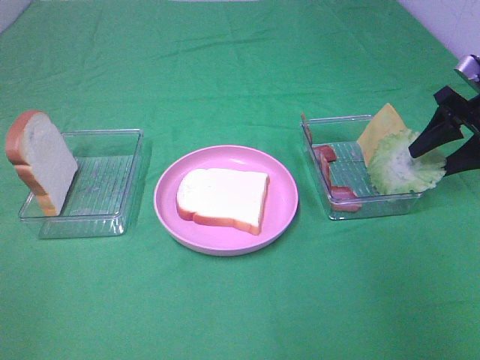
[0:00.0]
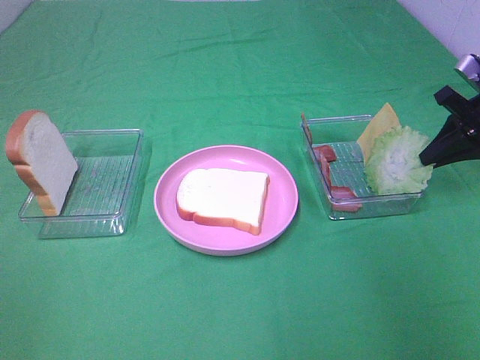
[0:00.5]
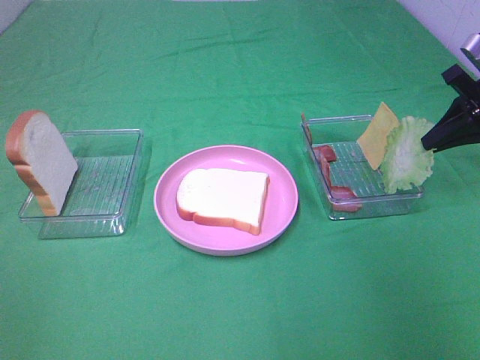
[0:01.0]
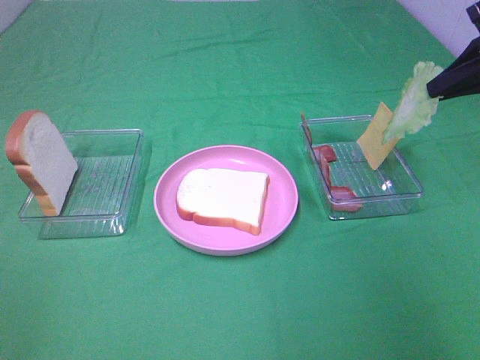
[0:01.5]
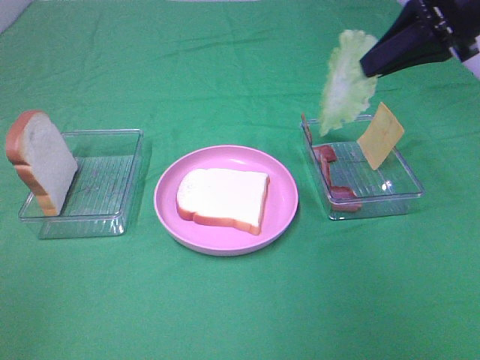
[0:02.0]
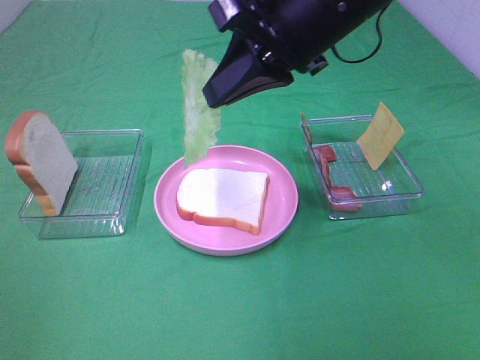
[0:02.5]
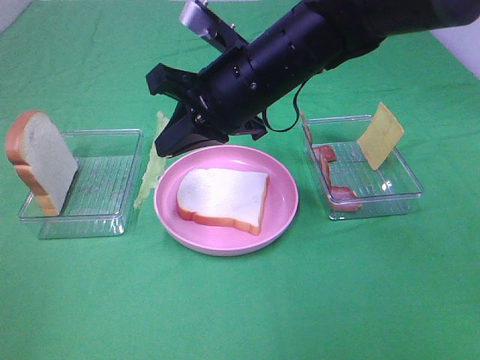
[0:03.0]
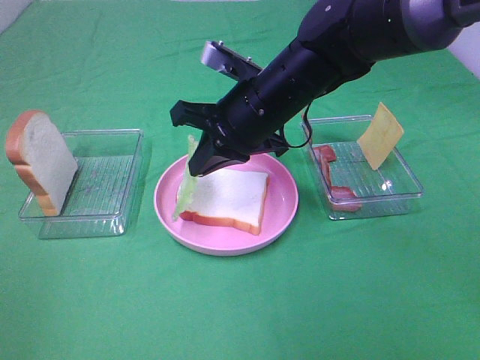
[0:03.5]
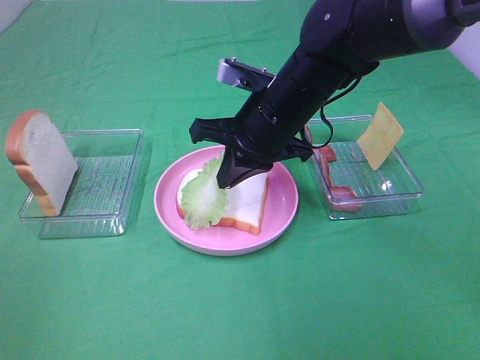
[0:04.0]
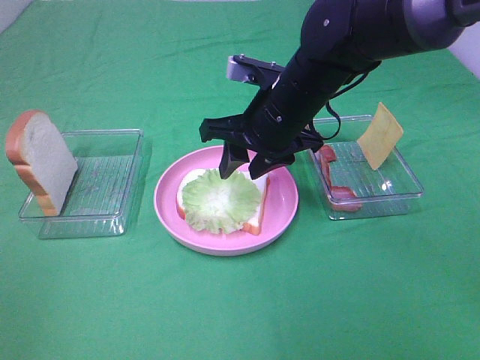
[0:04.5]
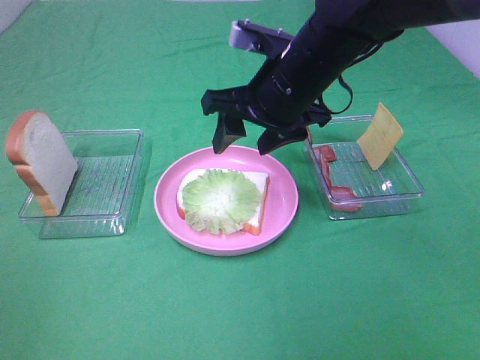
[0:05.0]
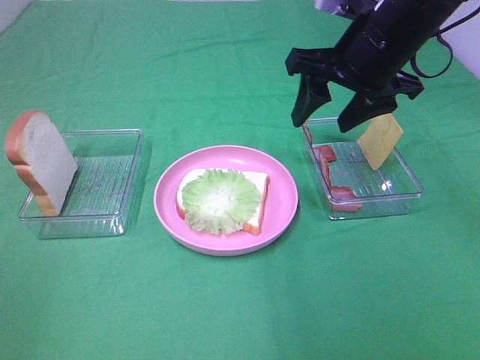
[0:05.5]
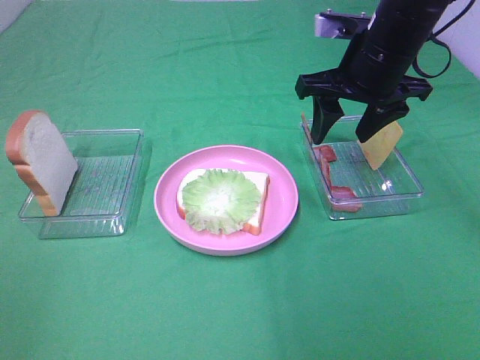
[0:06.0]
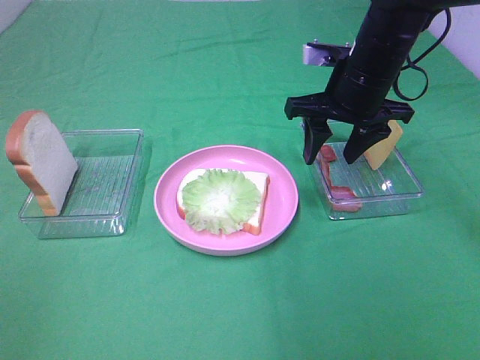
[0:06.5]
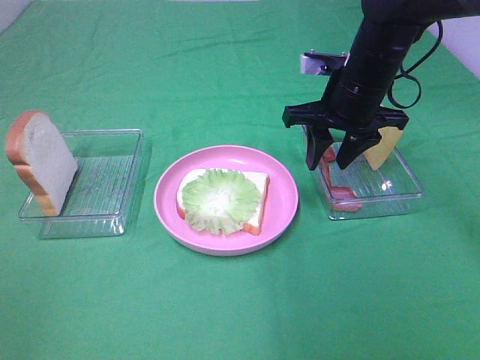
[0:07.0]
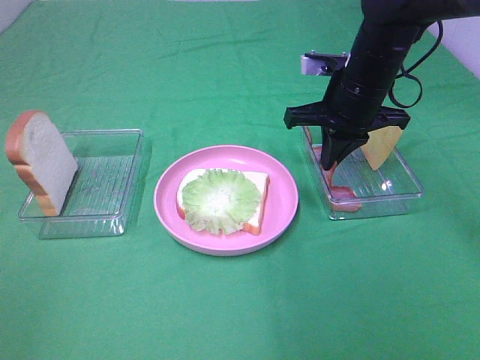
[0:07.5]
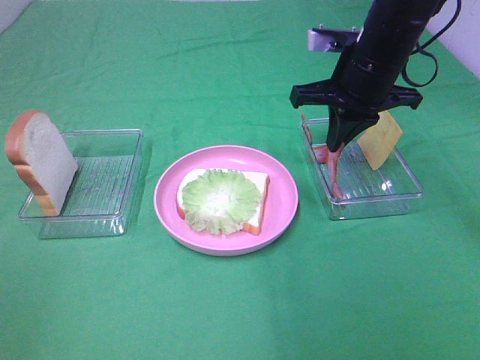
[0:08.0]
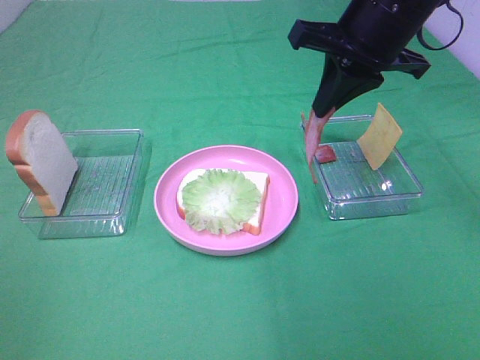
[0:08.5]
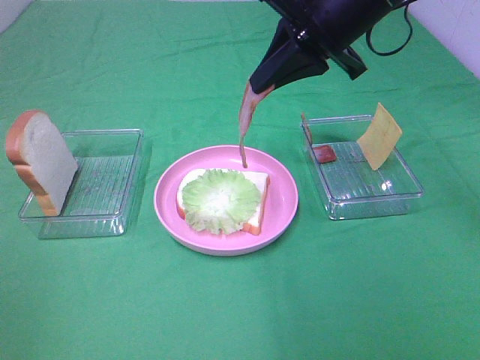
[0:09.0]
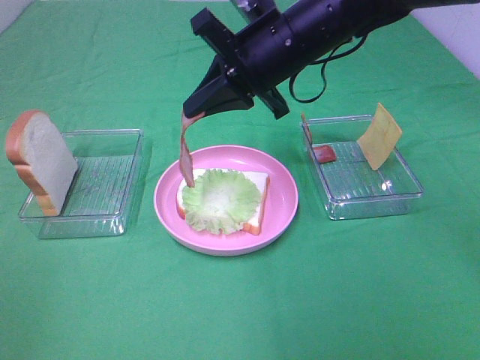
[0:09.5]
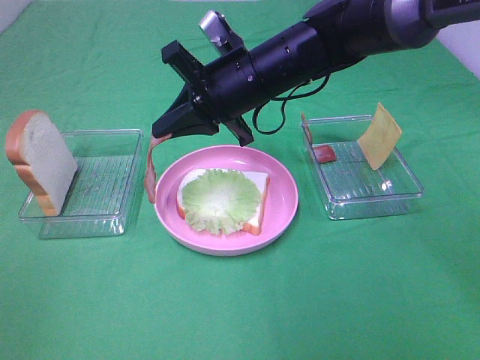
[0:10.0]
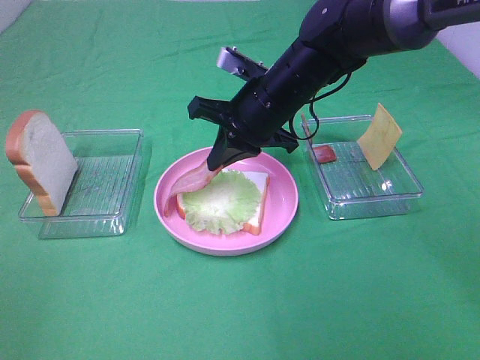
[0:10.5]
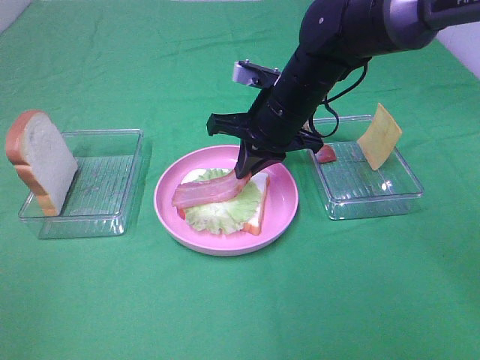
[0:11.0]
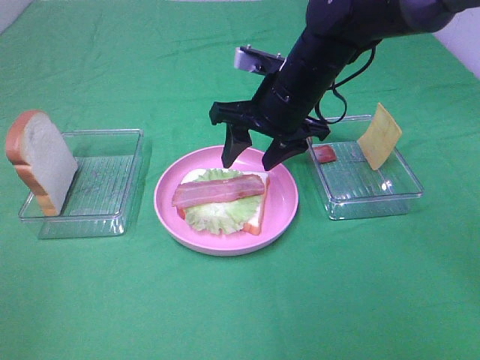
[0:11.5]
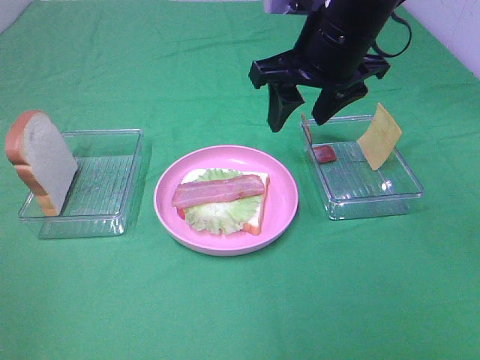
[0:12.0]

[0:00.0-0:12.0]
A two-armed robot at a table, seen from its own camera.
Task of the whole recording: Make sandwiches.
Step, 0:01.0 to 0:05.0: Right hand:place the lettuce slice on the bread slice.
Step, 0:05.5 to 0:07.5: Right hand:grab the bacon.
Step, 0:08.0 to 0:11.5: Right hand:place bacon on lettuce slice.
0:00.0 to 0:02.0: The right gripper goes approximately 20 cm upward and to the left, and closes.
0:02.0 to 0:04.0: The right gripper travels to the left and downward by roughly 20 cm.
0:04.0 to 0:06.0: The right gripper heads to the right and upward, covering about 10 cm, and opens up.
0:06.0 to 0:08.0: The right gripper closes its fingers.
0:08.0 to 0:10.0: The right gripper shifts some 10 cm to the left.
0:10.0 to 0:12.0: The right gripper heads upward and to the right, covering some 10 cm, and opens.

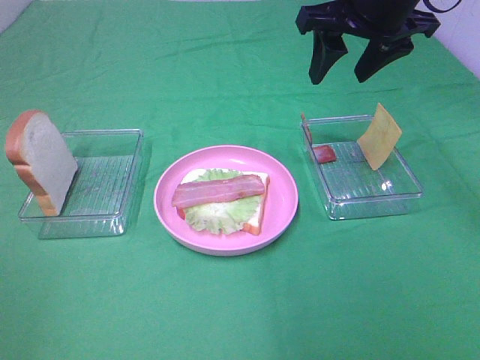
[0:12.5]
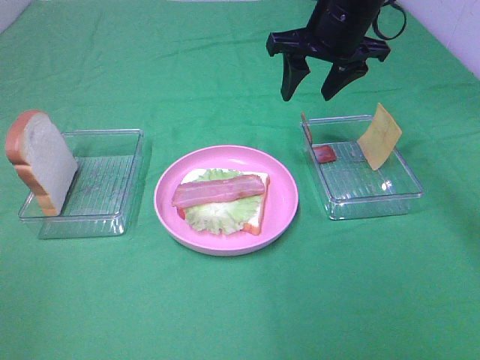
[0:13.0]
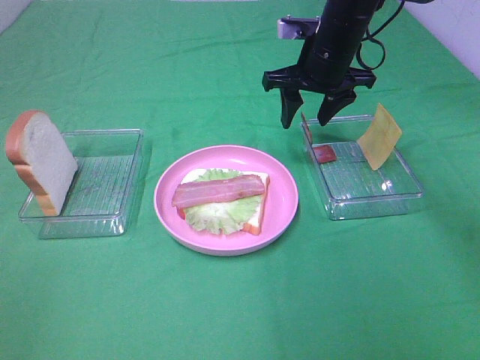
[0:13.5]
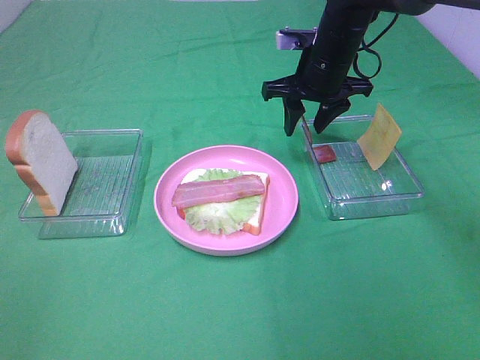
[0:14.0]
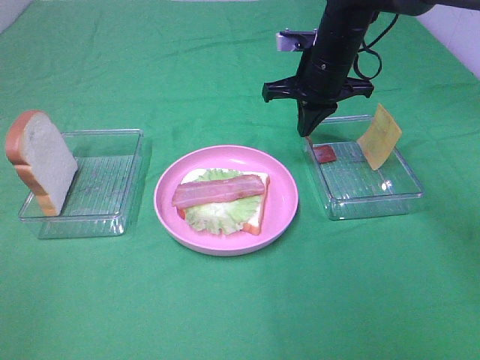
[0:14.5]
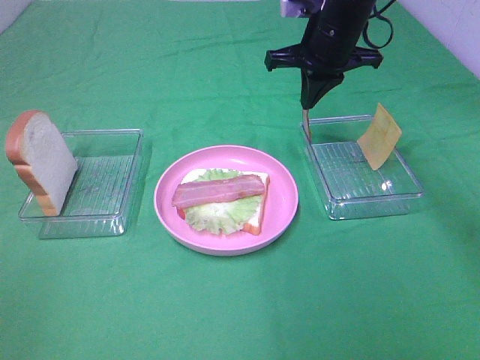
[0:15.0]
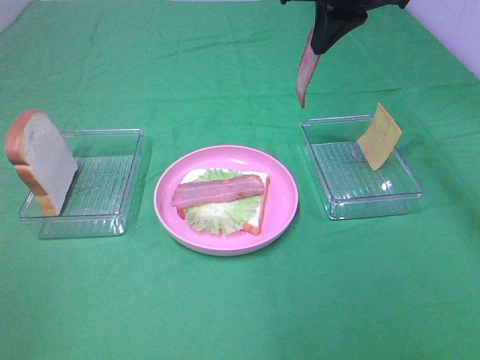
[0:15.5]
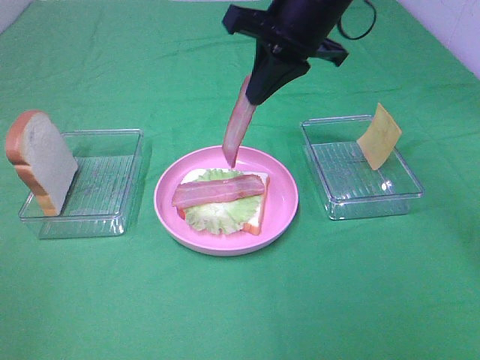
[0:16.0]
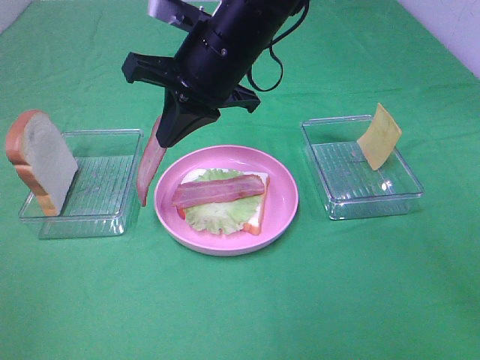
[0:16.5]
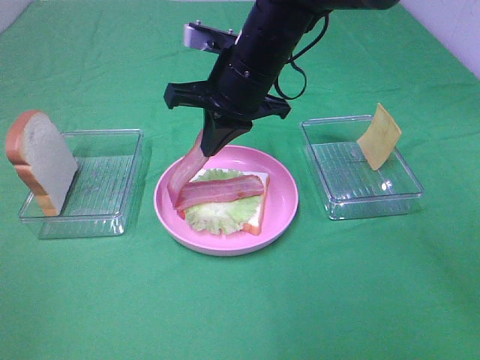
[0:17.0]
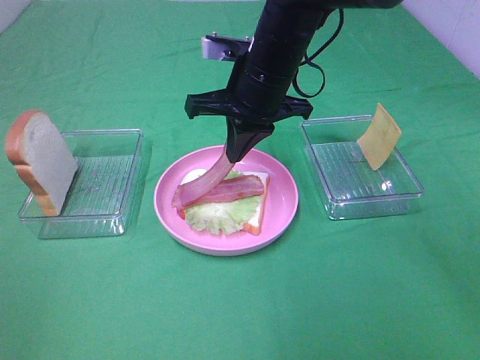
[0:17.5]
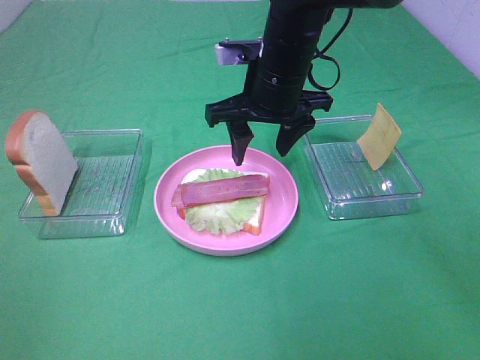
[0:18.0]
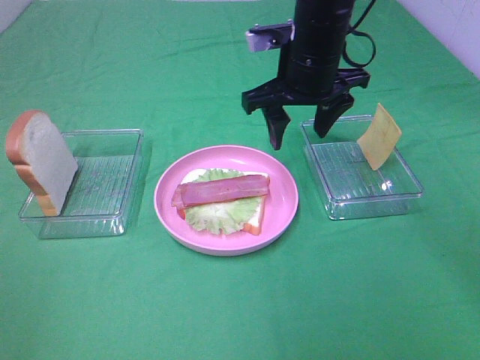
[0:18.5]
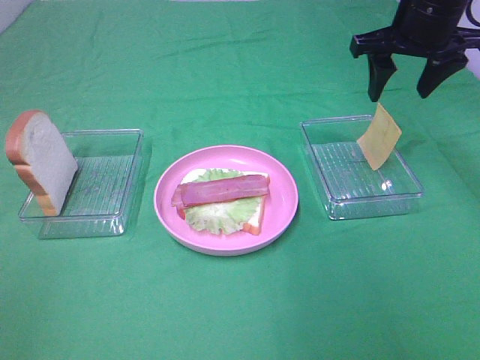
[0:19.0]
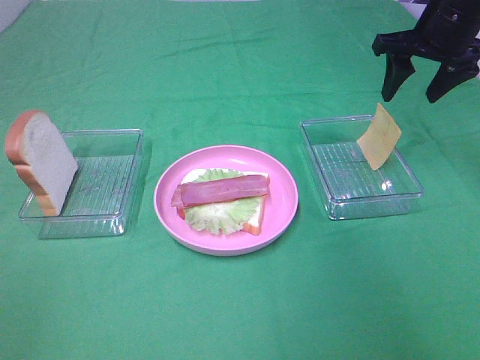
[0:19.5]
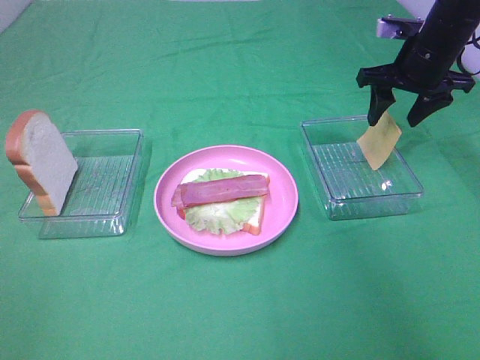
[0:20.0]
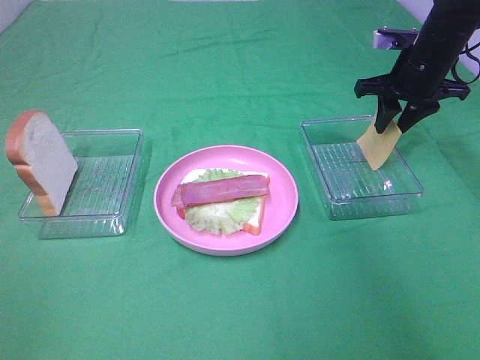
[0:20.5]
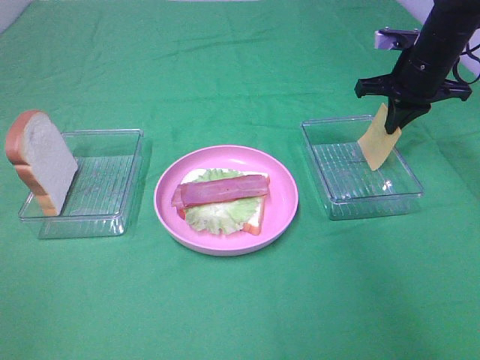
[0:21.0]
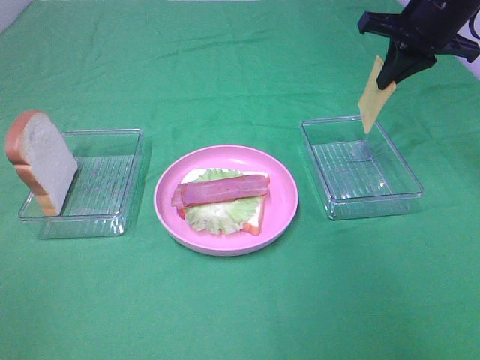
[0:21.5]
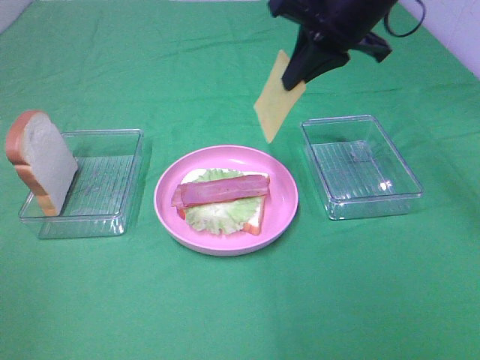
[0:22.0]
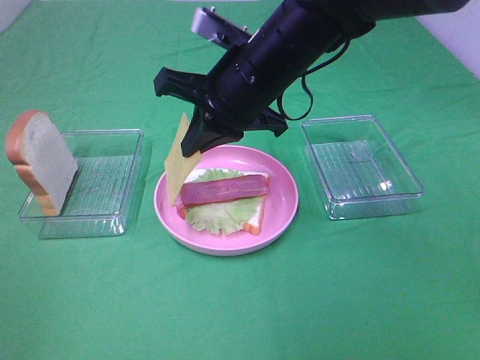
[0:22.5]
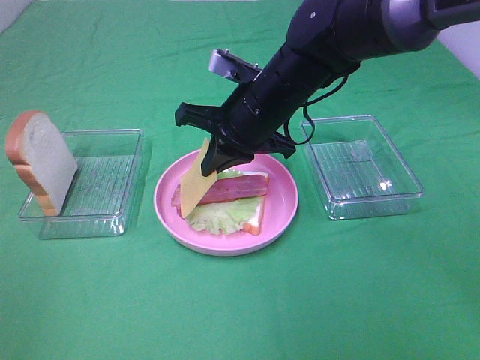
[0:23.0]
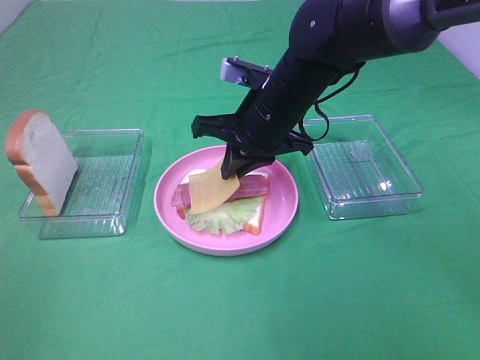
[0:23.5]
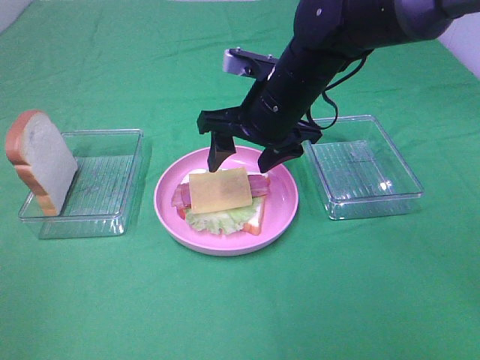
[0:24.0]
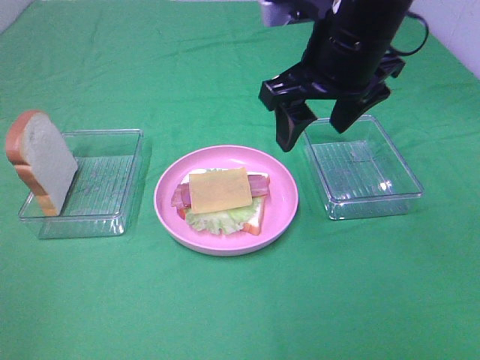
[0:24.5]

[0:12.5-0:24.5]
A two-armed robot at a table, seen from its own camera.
Task of the whole recording: Make sandwiches.
Step, 0:12.5 to 0:15.0: Right hand:grab the bacon.
Step, 0:15.5 to 0:18.0: Right hand:place bacon on bacon.
Step, 0:18.5 to 0:20.5: Right hand:grab the cheese slice.
Step, 0:21.0 to 0:24.0: Right hand:place the cheese slice on top of the bacon.
0:12.5 to 0:14.5: The right gripper heads downward and forward, covering about 15 cm, and closes its fingers.
0:14.5 to 0:16.5: The right gripper goes approximately 20 cm to the left, backward and upward.
0:16.5 to 0:18.5: The right gripper is displaced to the right by some 10 cm, and opens.
0:18.5 to 0:20.5: The right gripper travels to the right and forward by roughly 20 cm, and closes its fingers.
0:20.5 to 0:22.5: The right gripper heads to the left and backward, covering approximately 25 cm, and closes its fingers.
0:22.5 to 0:24.5: The right gripper heads to the right and upward, covering approximately 10 cm, and opens up.

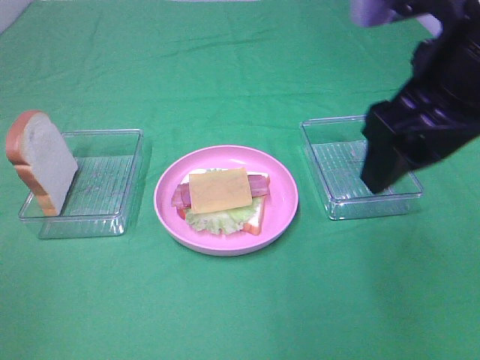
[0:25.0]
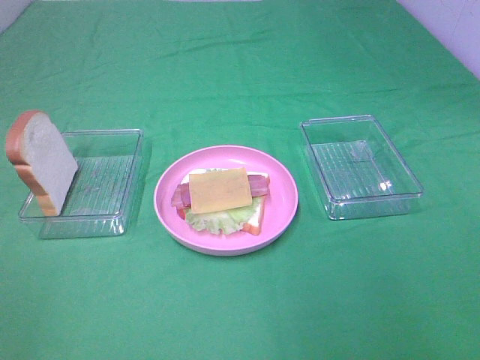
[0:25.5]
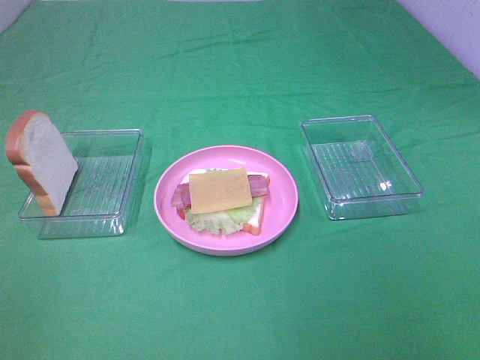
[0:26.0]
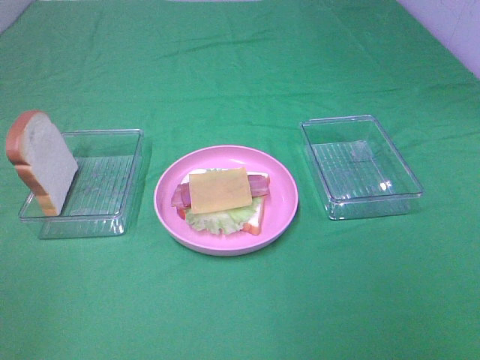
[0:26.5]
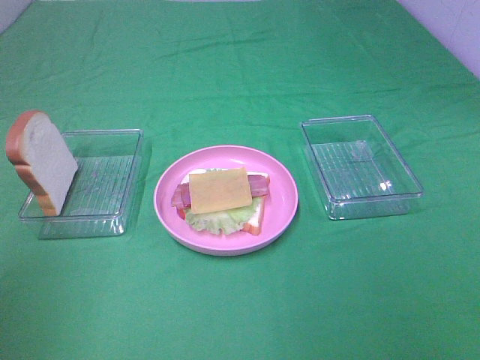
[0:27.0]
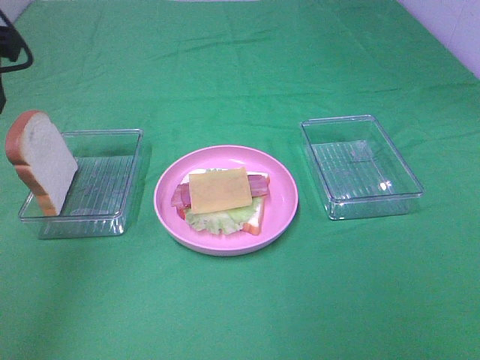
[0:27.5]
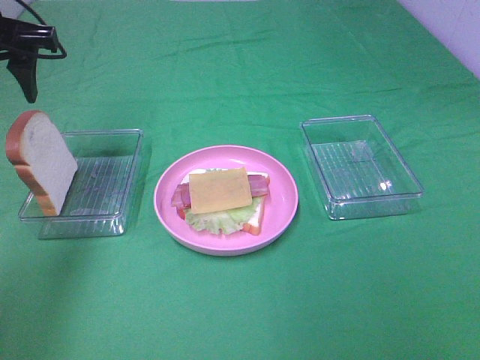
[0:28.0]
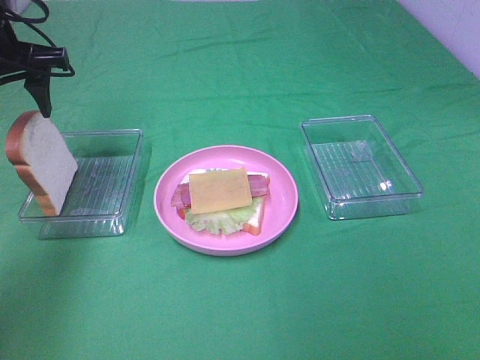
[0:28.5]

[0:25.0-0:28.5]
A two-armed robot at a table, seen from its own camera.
Task of the whole recording: Make sandwiches.
0:25.0 to 0:27.0: The right gripper goes approximately 25 cm backward and to the right.
0:27.0 to 0:28.5: The left gripper shifts about 30 cm forward.
